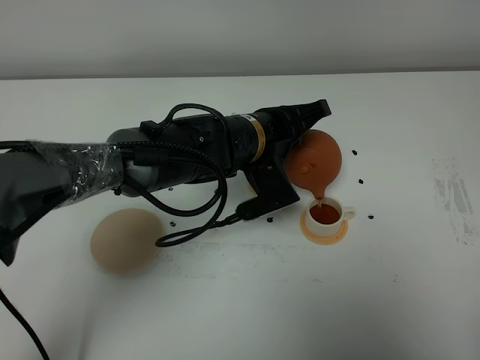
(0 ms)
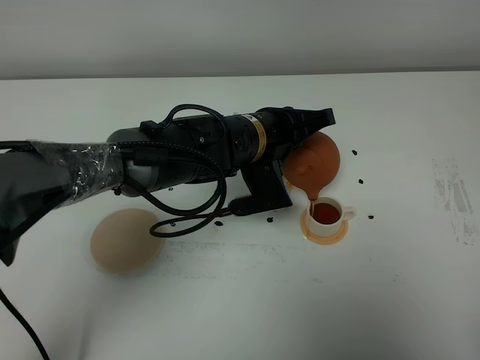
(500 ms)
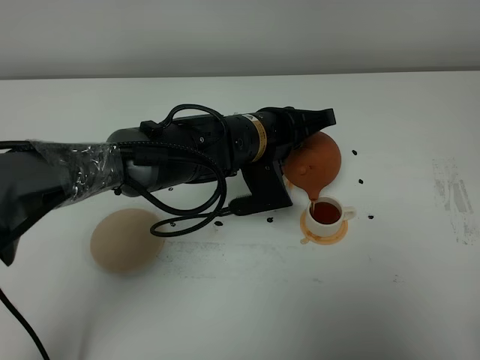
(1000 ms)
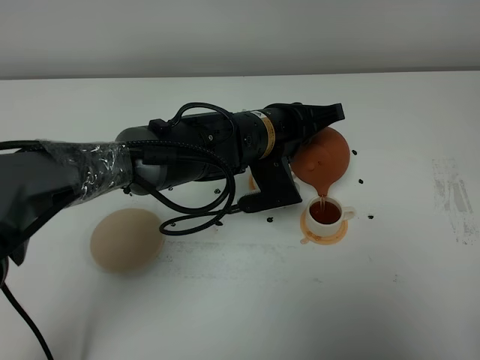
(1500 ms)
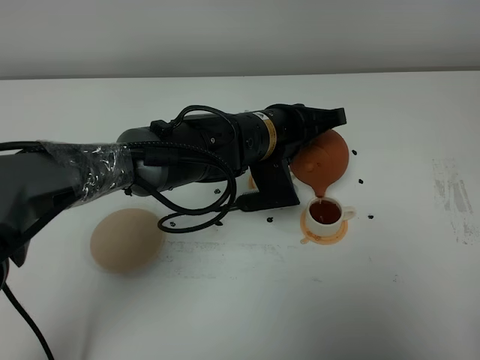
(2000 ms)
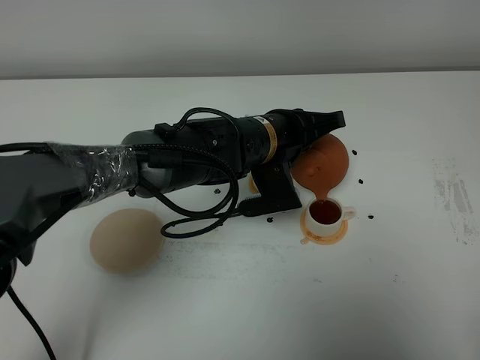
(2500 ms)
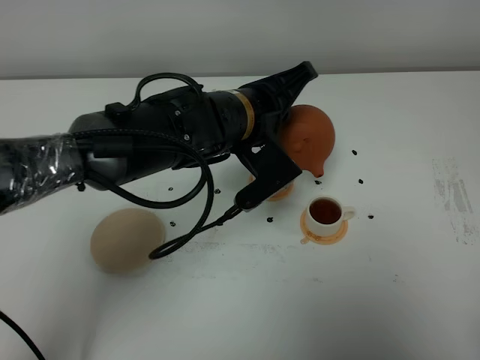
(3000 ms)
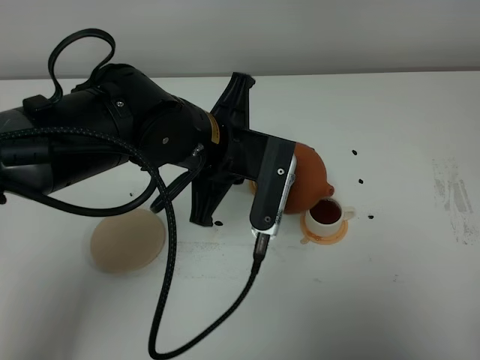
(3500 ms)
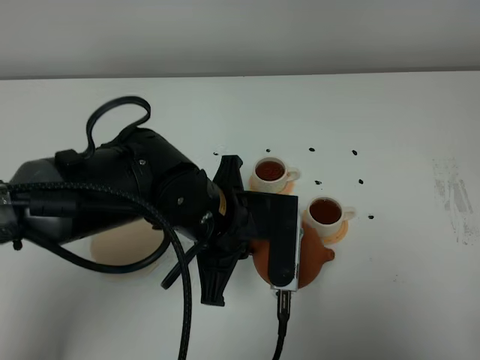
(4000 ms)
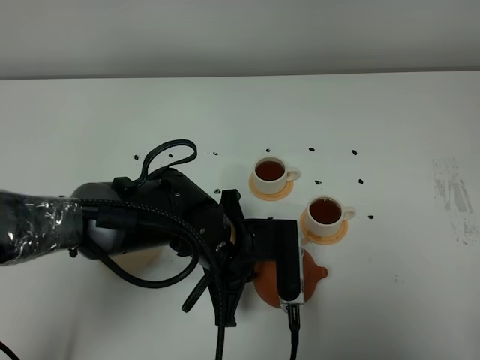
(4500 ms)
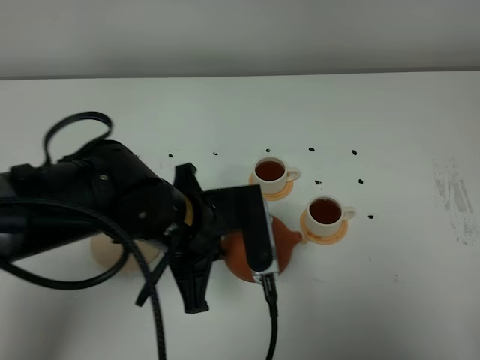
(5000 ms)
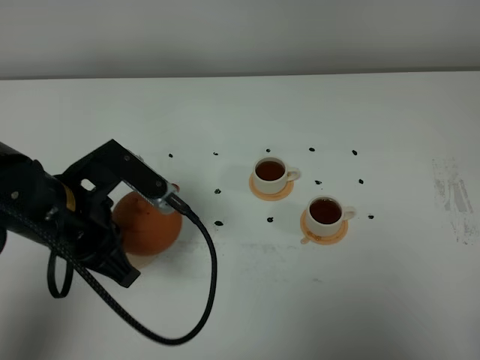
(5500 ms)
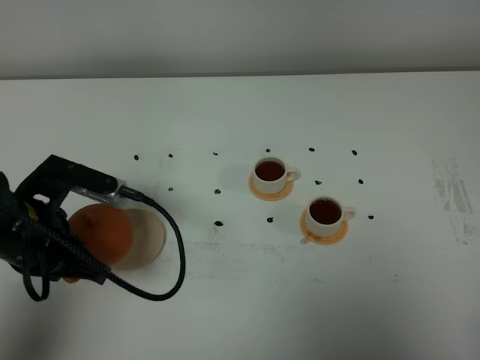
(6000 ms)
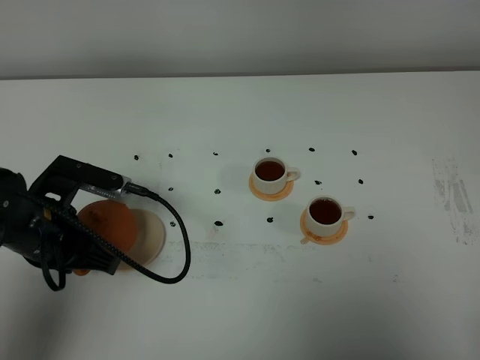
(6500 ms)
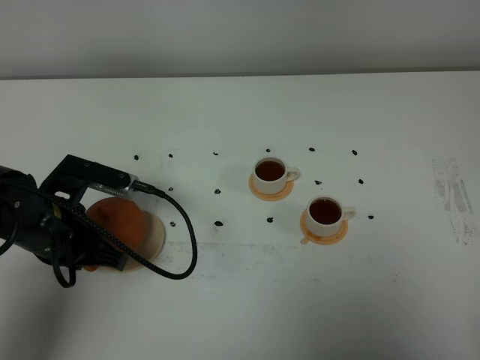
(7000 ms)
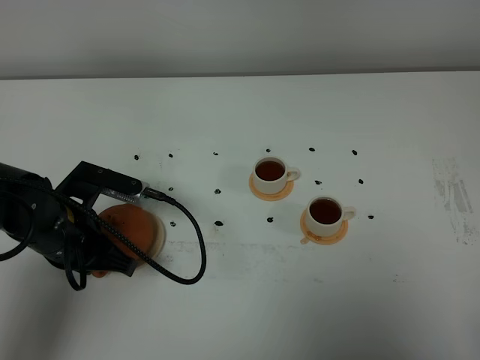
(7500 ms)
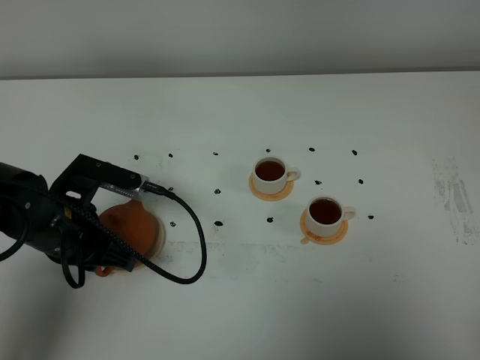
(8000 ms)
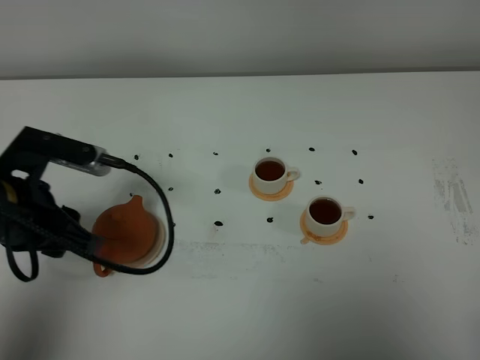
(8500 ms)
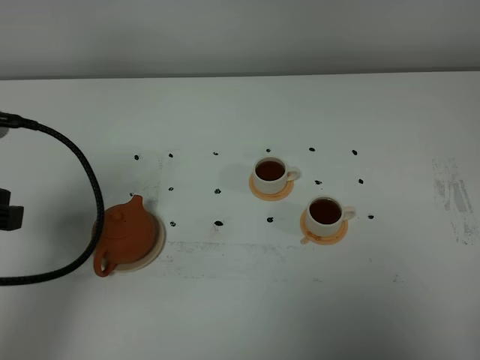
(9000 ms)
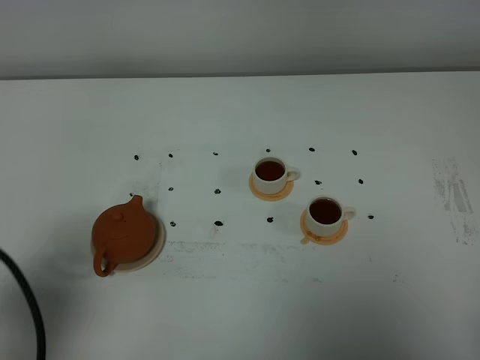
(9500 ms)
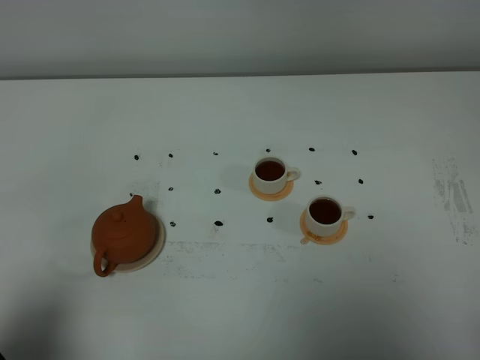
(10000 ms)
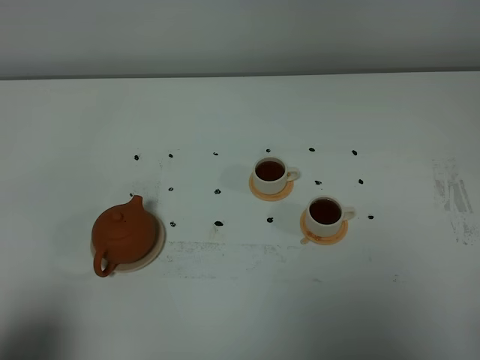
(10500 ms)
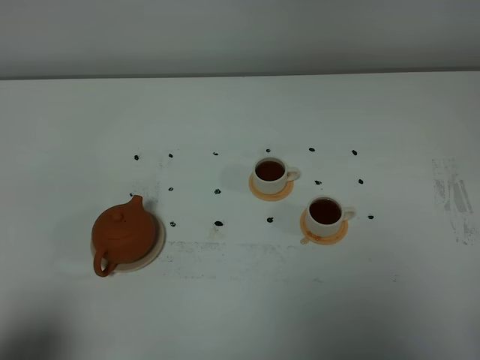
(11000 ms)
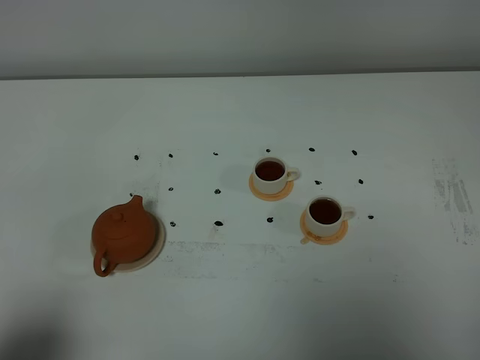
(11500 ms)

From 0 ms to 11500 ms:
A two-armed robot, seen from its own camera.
Task of the whole recording: grasp the brown teapot and pour the tea into the two white teacups one by one, put the brown teapot back in its original place.
Step, from 0 ms to 3500 ms: Pour tea into the teacup with the left gripper.
From 0 ms to 2000 ms: There are only small adjustments of the grippers.
From 2000 ms to 4000 ms: The left gripper is displaced backward and to the left by about 10 cm.
From 4000 ms to 6000 ms: The left gripper moves to the left, about 20 cm.
From 6000 ms to 7500 ms: The left gripper changes place by approximately 5 cm.
From 7500 ms to 9500 ms: The left gripper travels backward, upward and to the left by roughly 25 cm, and opens its fingers.
From 9500 ms to 11500 ms: The left gripper goes approximately 10 cm backward.

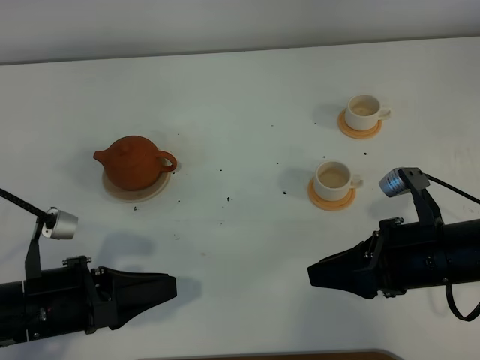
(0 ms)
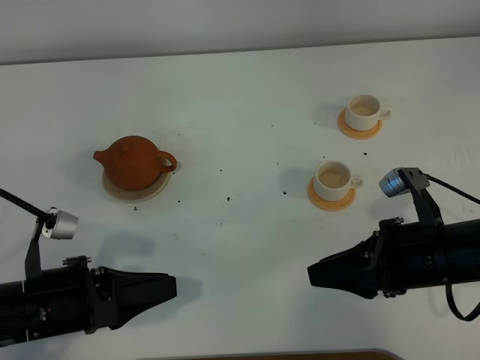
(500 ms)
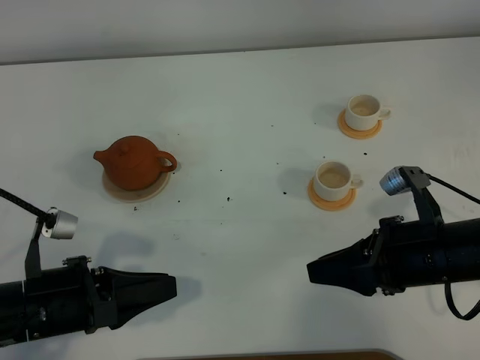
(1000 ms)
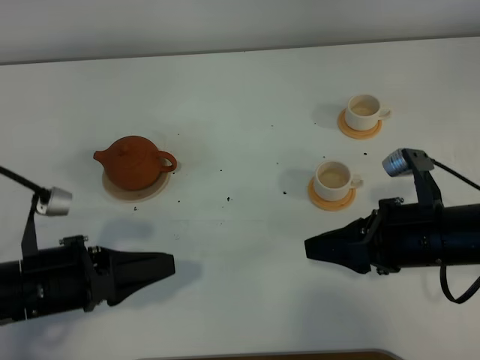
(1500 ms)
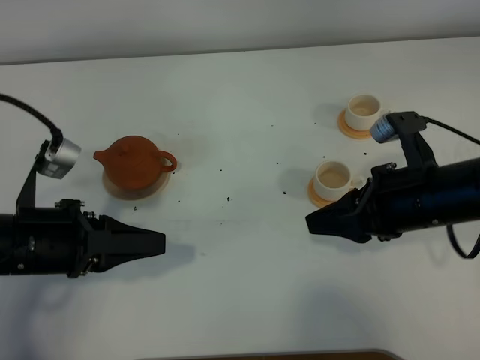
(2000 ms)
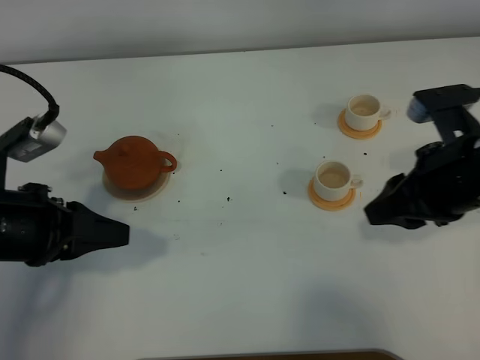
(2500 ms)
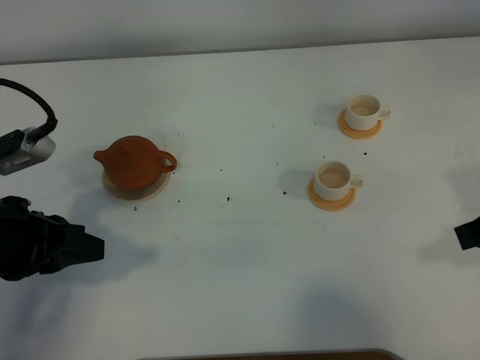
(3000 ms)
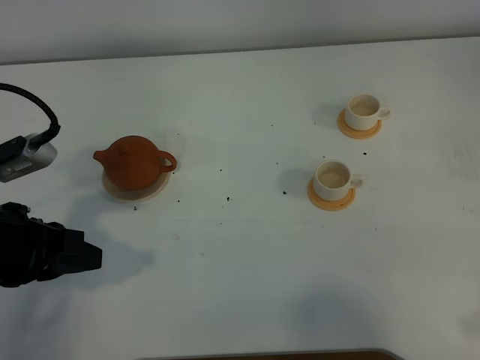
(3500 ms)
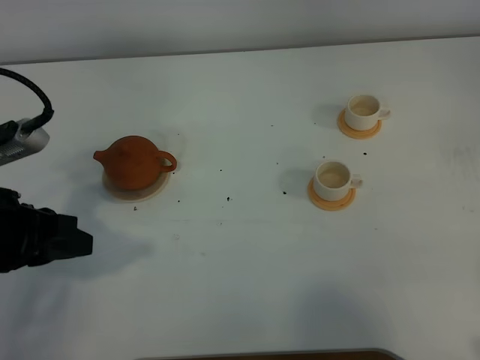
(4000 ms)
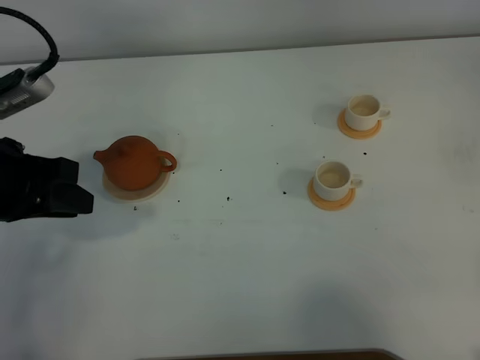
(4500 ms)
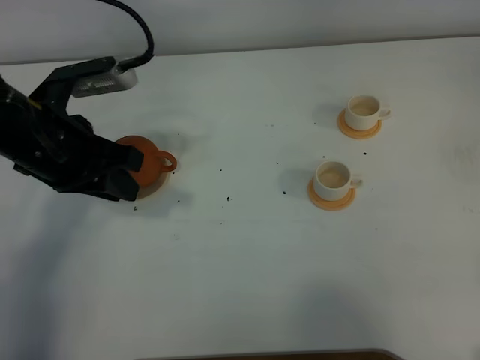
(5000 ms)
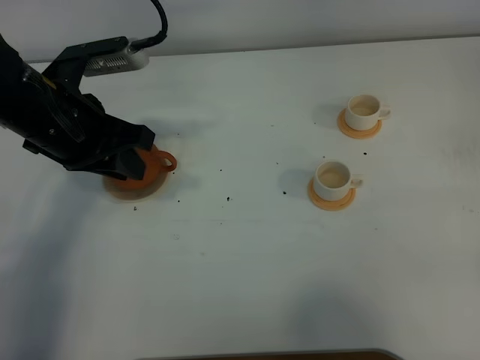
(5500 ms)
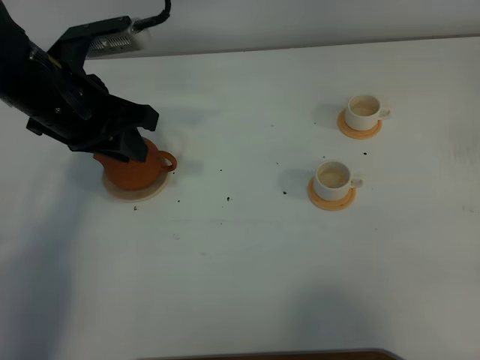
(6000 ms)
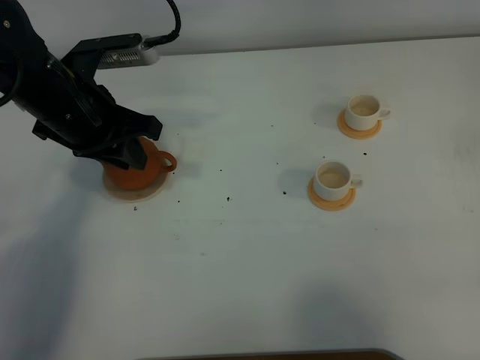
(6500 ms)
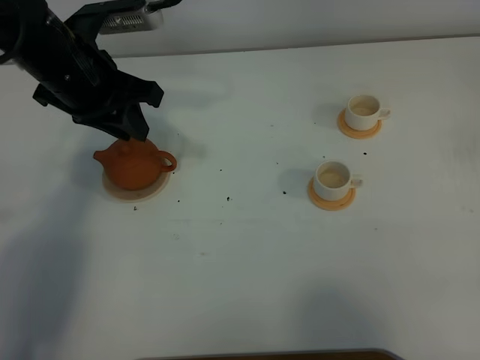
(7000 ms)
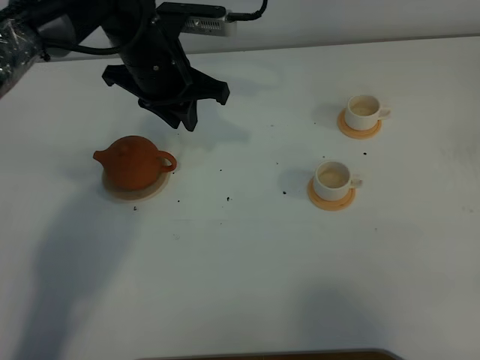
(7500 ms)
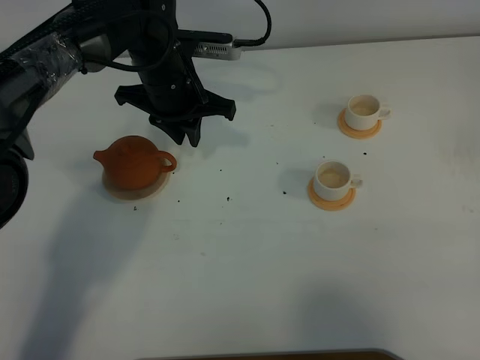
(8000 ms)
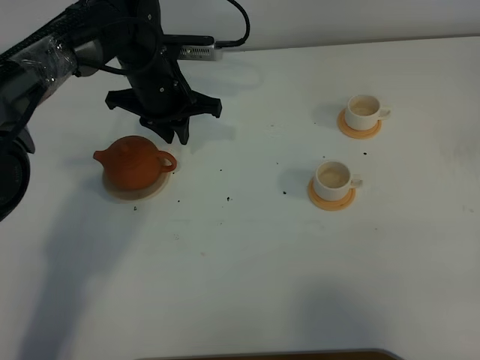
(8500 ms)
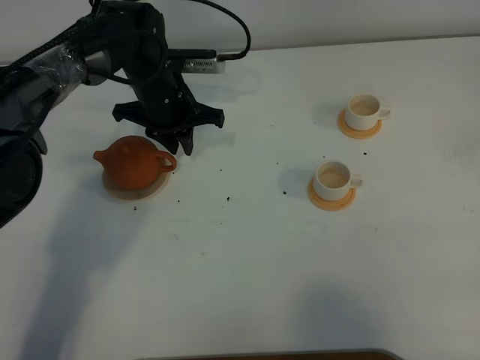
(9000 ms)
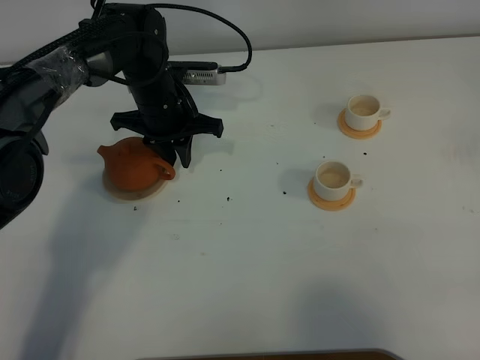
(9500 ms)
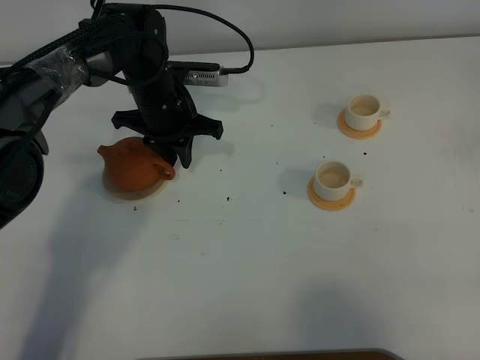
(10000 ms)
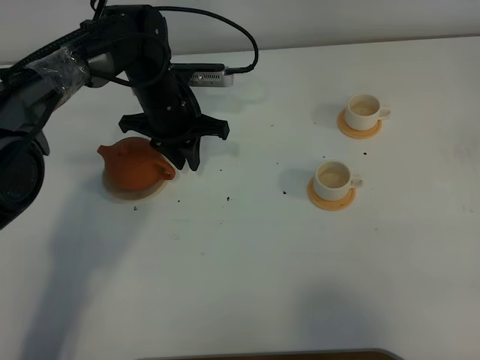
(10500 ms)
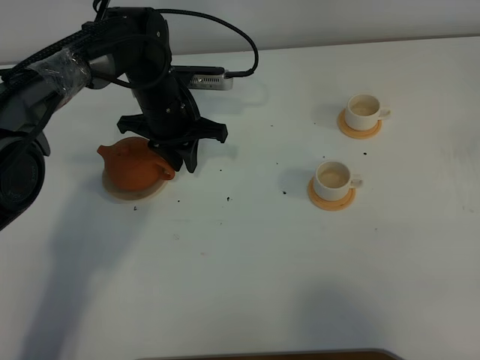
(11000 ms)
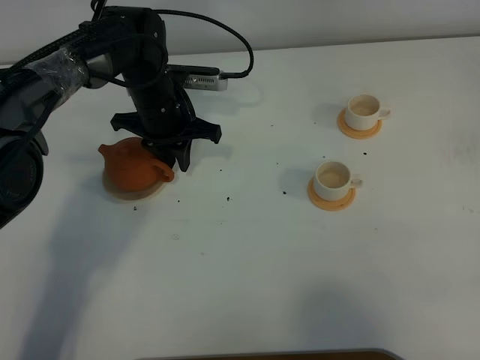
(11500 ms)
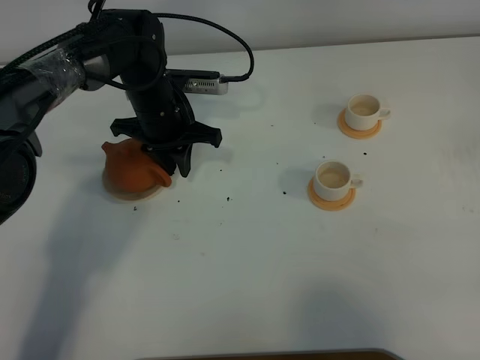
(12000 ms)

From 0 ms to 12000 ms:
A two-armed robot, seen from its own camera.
Task of the whole recording: grasp the brown teapot and pour the tea into the two white teacups one by one, put the brown teapot back in its original place.
From 0 ms to 2000 ms: The left gripper shifts roughly 5 cm forward, while the right gripper moves approximately 5 cm.
From 2000 ms to 4000 ms: The left gripper travels upward by about 5 cm; the right gripper heads backward, to the right and upward, covering about 25 cm.
From 4000 ms to 6000 ms: The left gripper goes roughly 15 cm forward and to the right.
From 6000 ms to 8000 ms: The left gripper heads forward, to the right and downward, covering approximately 15 cm.
From 8000 ms to 10000 ms: The left gripper heads downward, covering about 5 cm.
From 10000 ms to 12000 ms: The two grippers keep their place.

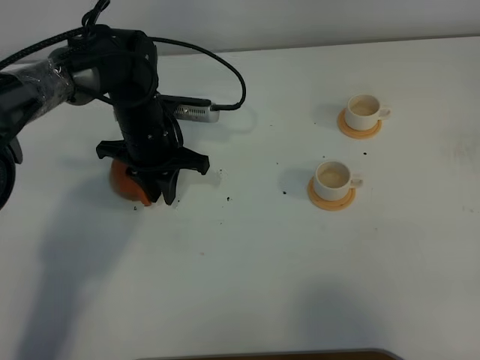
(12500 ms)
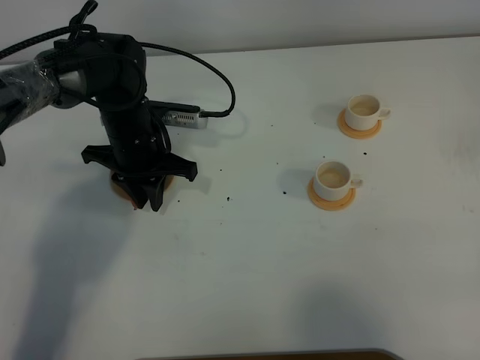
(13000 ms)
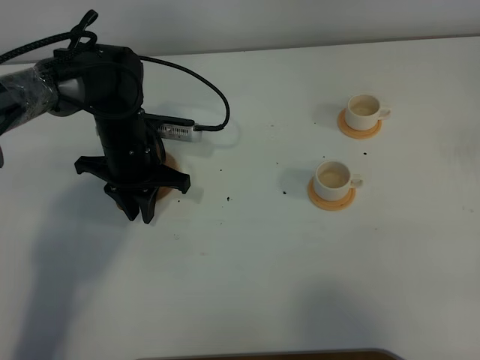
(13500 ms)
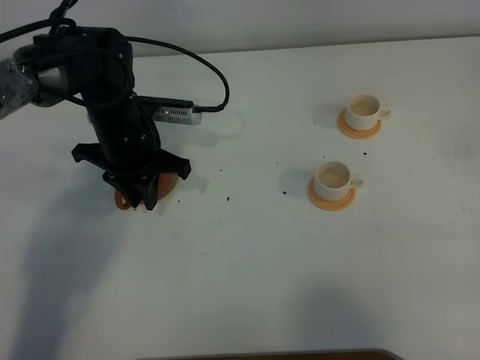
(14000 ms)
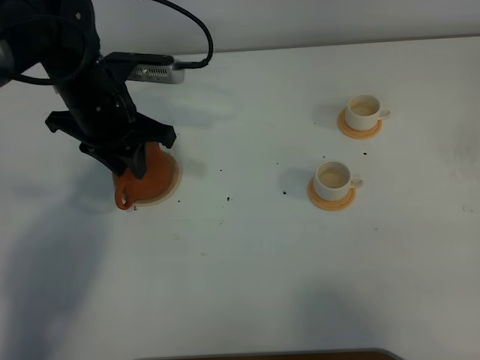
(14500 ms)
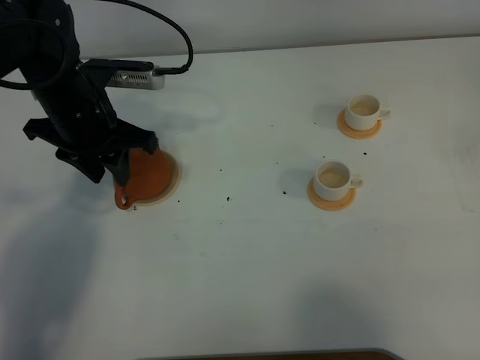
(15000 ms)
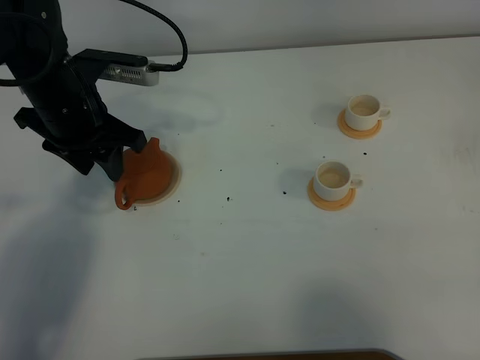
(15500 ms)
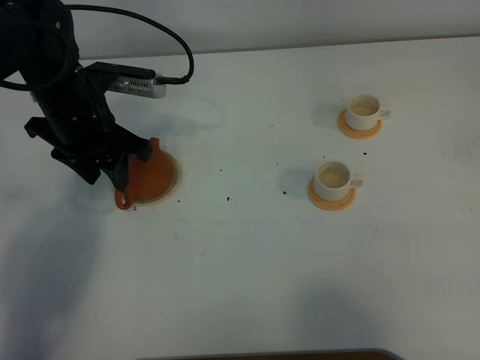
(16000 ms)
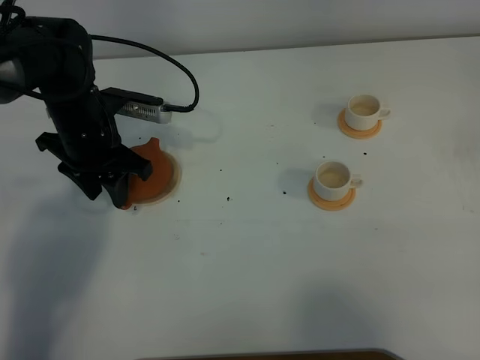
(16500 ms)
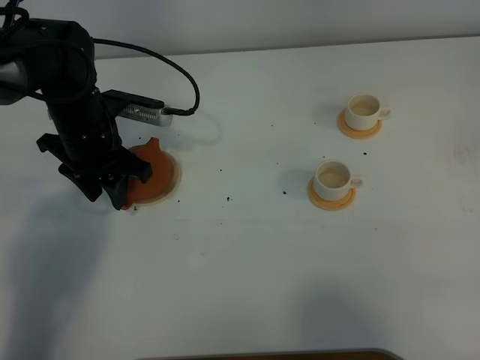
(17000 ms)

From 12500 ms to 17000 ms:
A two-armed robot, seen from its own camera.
Task of the whole recording: grasp the brown teapot and pour the tea into the two white teacups one by one, put the brown teapot back in its original place.
From 12500 ms to 14500 ms: The left gripper moves upward, about 10 cm.
From 14500 ms to 17000 ms: The left gripper travels downward by approximately 5 cm, and opens.
